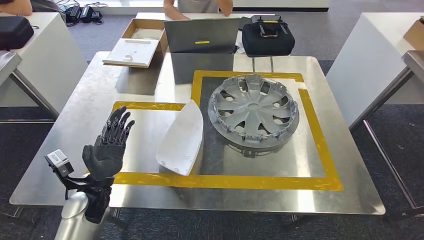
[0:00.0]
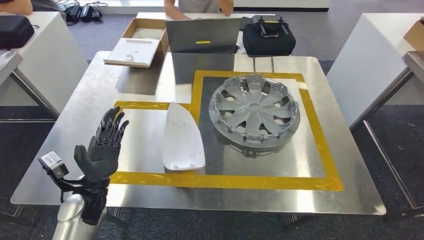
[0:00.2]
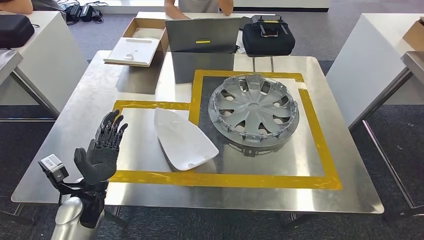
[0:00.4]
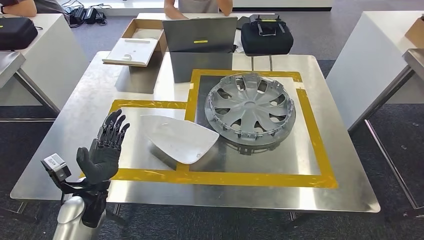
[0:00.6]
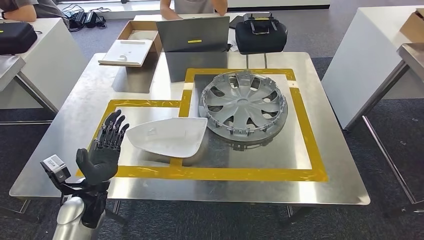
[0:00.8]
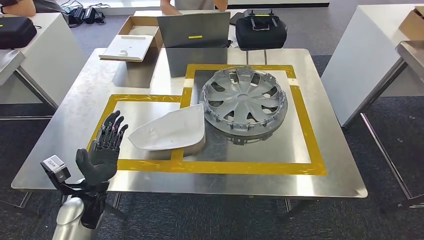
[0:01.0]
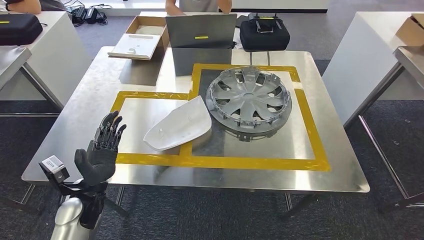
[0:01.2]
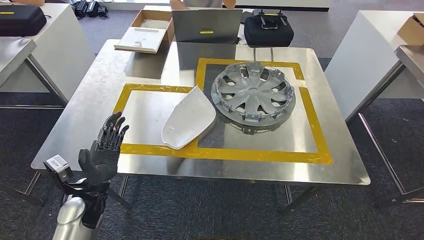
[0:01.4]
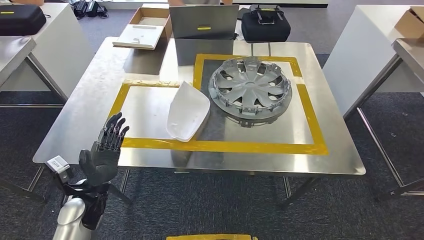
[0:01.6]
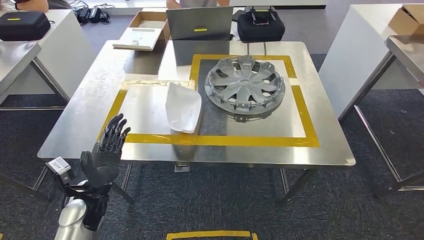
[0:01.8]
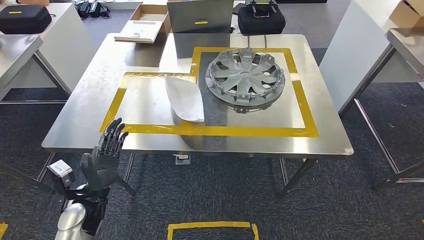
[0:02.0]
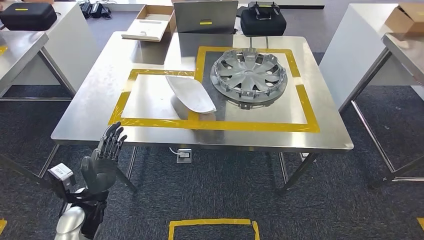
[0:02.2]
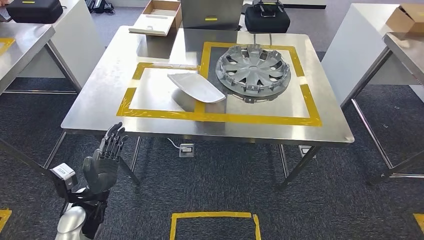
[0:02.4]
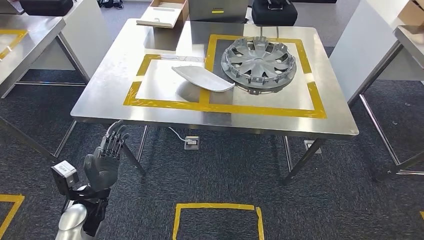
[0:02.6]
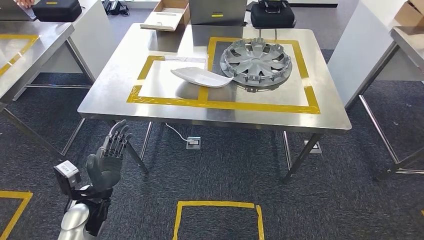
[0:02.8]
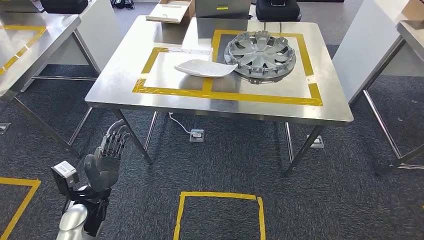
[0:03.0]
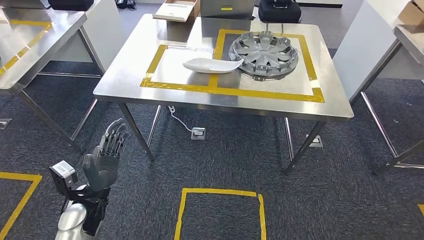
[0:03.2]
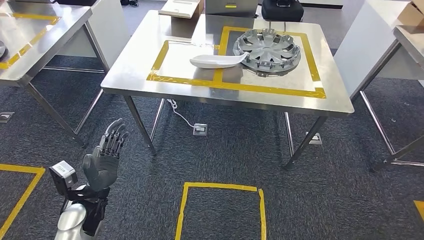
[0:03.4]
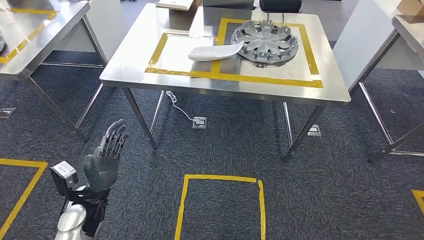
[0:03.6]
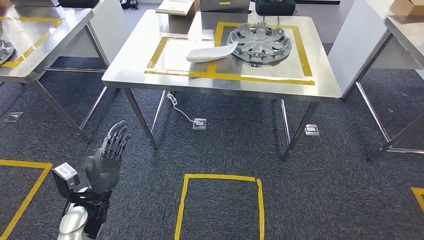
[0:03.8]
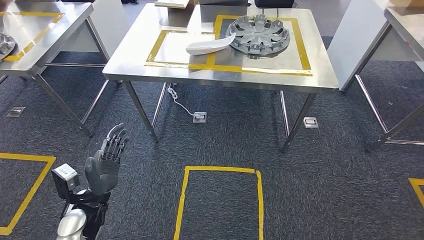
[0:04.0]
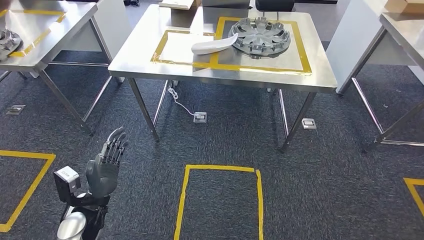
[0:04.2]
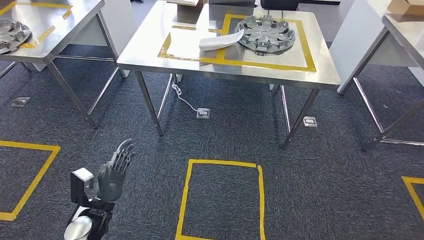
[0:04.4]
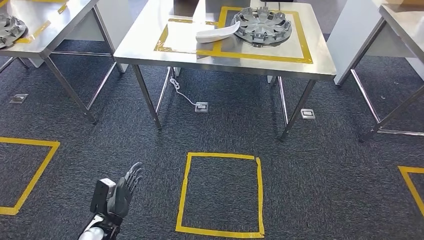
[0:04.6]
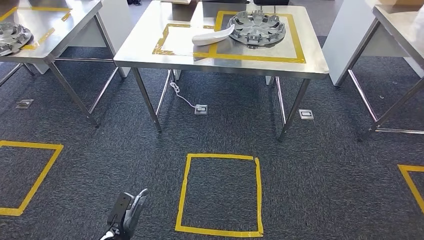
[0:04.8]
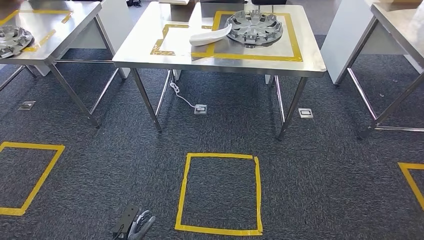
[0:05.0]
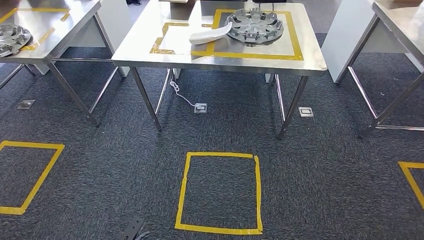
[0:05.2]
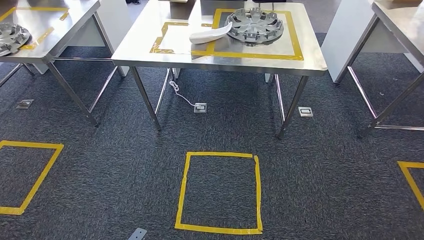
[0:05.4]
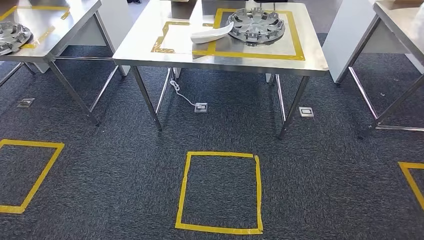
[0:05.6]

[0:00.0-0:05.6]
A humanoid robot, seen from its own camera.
Step, 0:01.4 to 0:05.4: Return to the initial position at the workbench.
